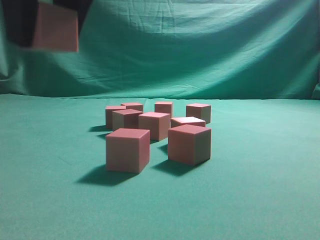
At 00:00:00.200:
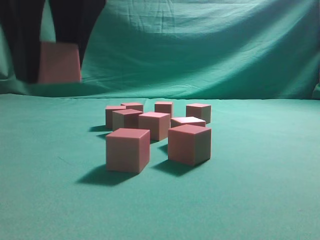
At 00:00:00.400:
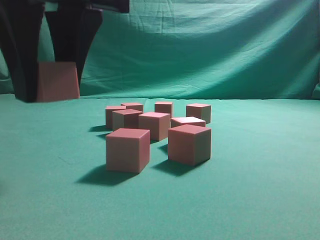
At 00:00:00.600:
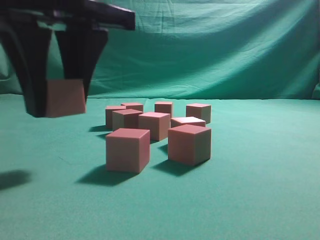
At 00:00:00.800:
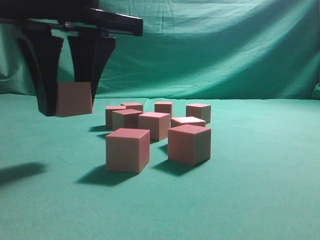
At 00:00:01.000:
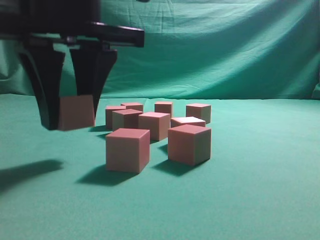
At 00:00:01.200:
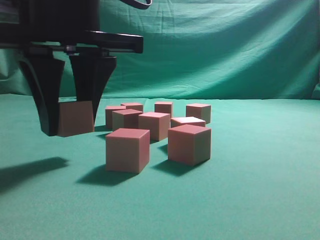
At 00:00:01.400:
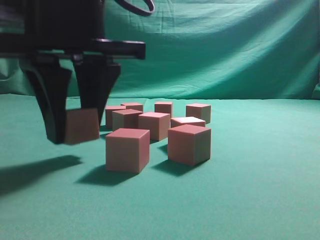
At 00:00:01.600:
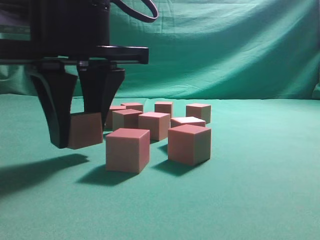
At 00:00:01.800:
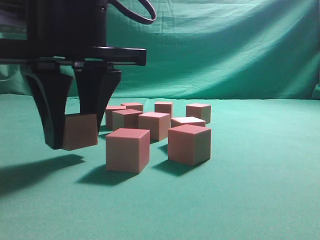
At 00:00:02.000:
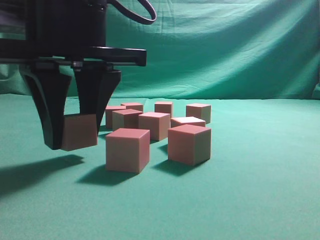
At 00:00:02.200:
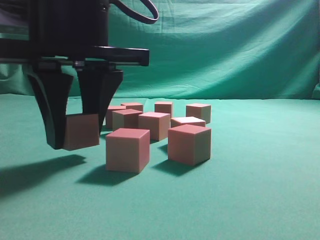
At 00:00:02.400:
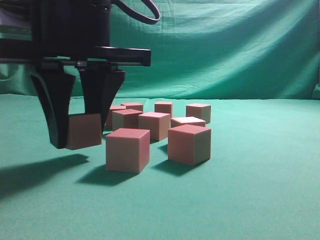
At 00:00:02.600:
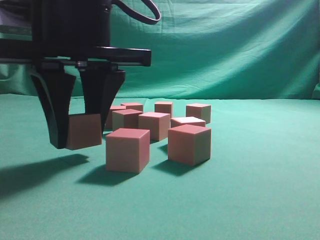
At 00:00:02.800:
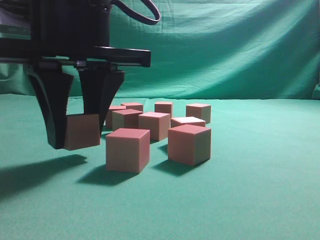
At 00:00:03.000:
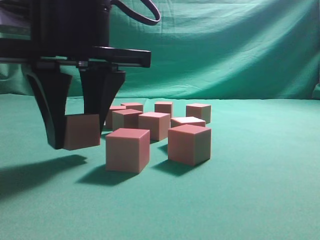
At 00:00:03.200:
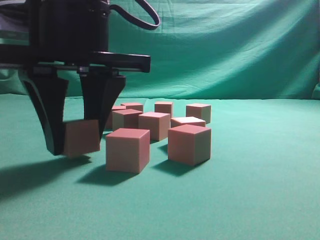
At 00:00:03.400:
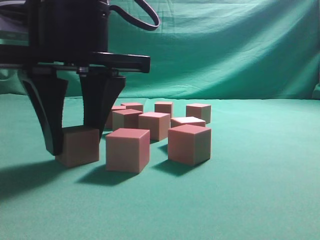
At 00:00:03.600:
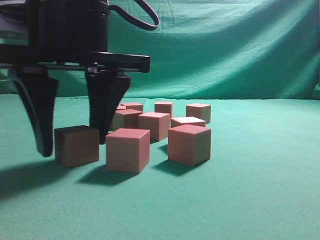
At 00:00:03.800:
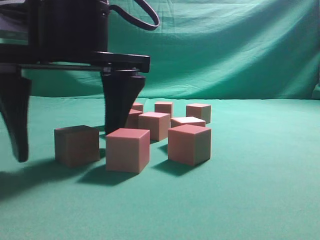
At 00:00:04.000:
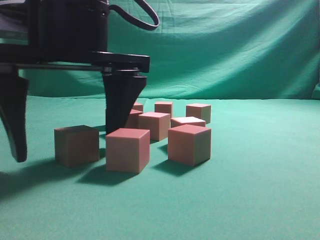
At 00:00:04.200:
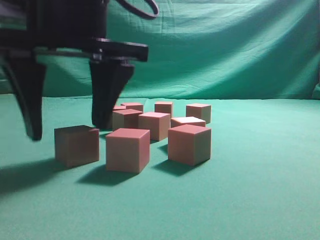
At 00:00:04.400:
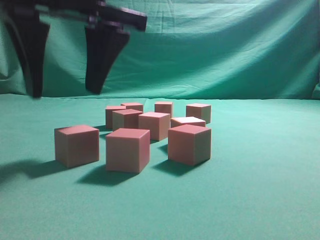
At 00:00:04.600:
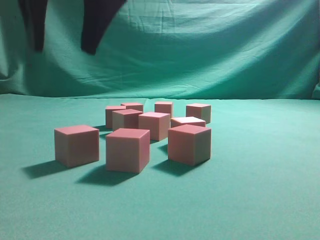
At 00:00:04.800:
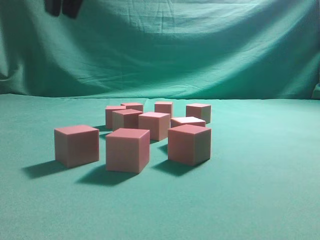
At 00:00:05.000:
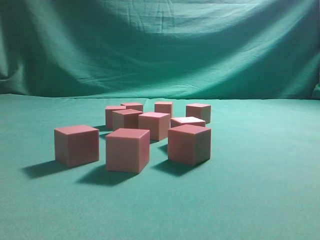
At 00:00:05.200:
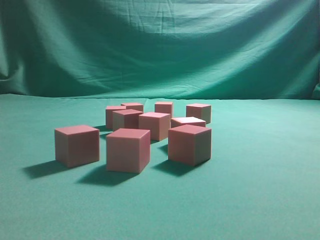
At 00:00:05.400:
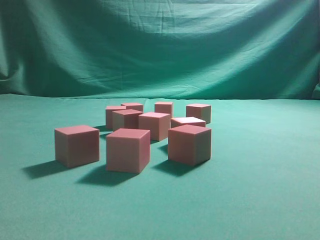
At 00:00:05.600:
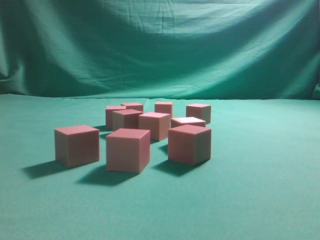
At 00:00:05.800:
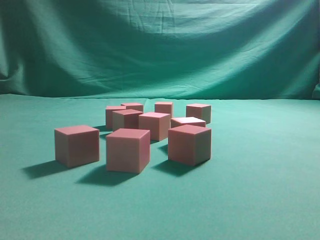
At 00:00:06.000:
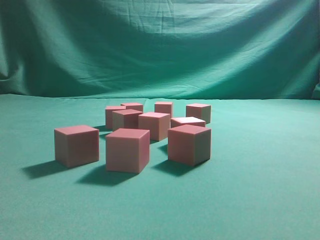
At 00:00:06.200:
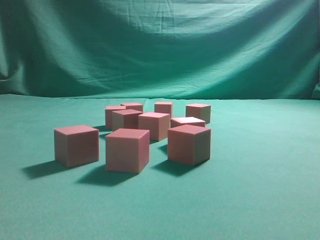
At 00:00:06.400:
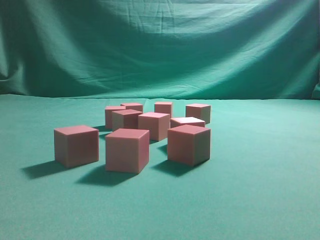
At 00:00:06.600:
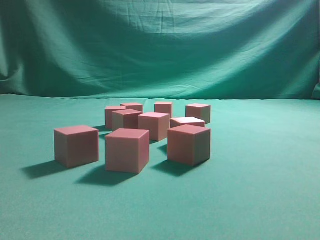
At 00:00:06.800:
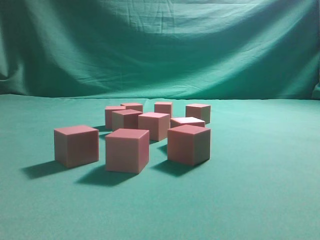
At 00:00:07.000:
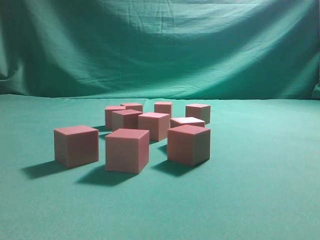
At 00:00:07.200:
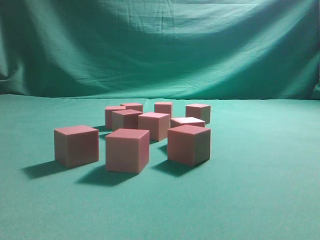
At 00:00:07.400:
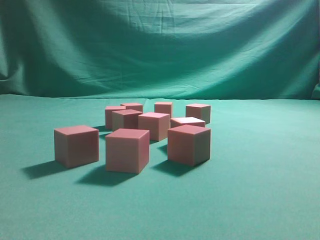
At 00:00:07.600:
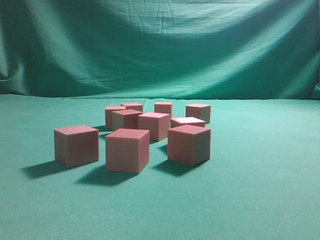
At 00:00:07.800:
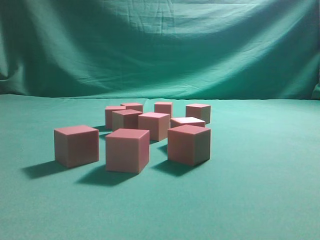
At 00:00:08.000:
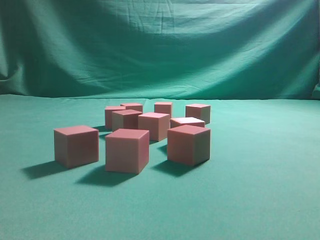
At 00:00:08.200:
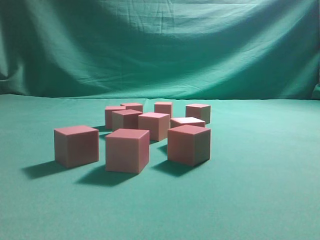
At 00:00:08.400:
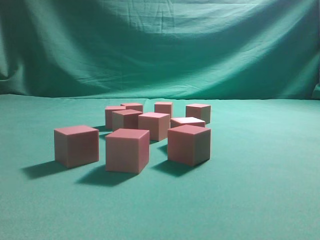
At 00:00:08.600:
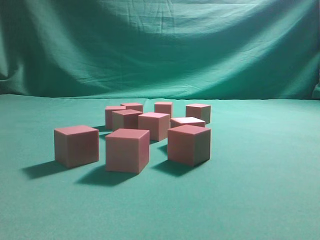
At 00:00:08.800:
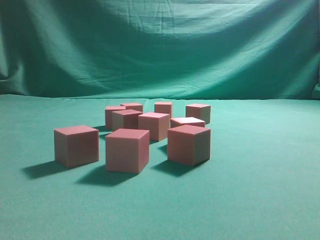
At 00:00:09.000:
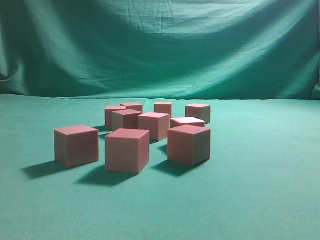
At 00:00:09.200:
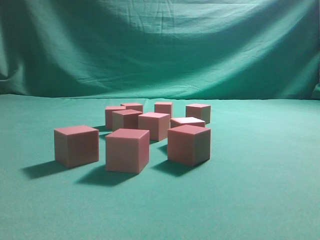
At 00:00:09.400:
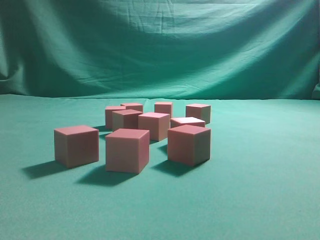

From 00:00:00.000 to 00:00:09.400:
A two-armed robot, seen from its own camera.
Task of the whole recording: pick up the multiple cubes in two columns one by one and place them in another position on the table.
Step, from 00:00:00.000 to 00:00:04.000: Place the block at the correct position to assemble the letter S.
From 00:00:00.000 to 00:00:01.600: The right gripper goes about 10 cm downward.
From 00:00:01.600 to 00:00:03.200: Both grippers stay put.
From 00:00:03.200 to 00:00:04.800: The right gripper heads upward, covering approximately 10 cm, and opens and closes again.
